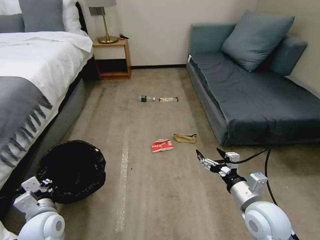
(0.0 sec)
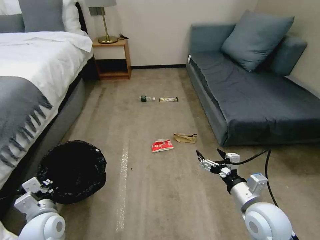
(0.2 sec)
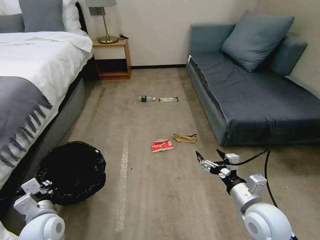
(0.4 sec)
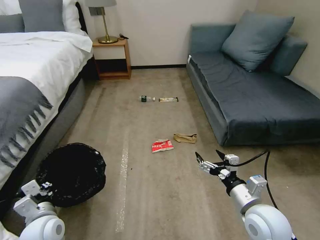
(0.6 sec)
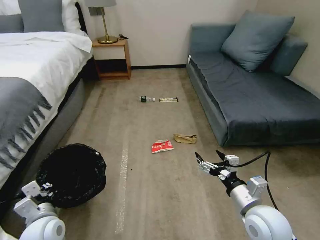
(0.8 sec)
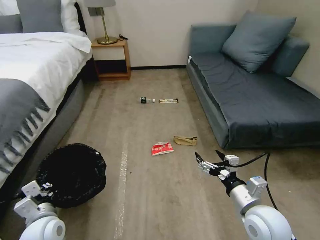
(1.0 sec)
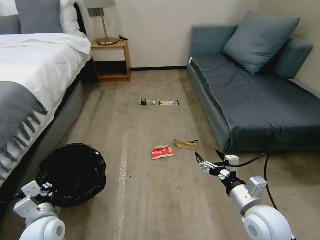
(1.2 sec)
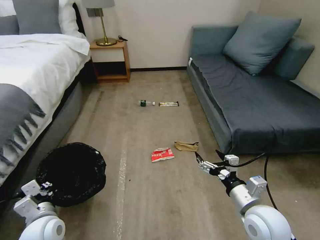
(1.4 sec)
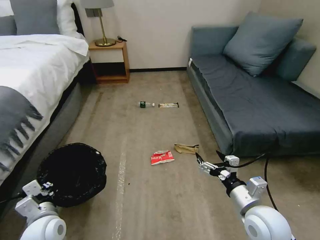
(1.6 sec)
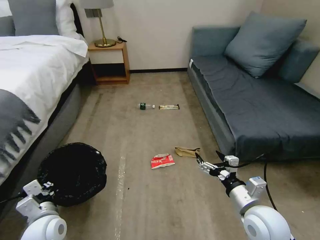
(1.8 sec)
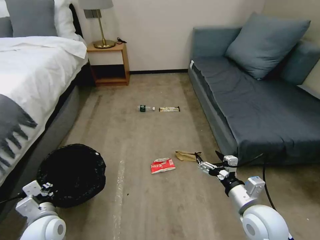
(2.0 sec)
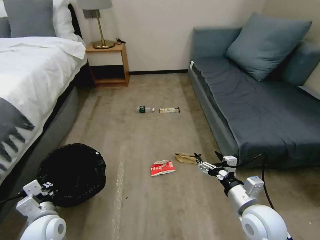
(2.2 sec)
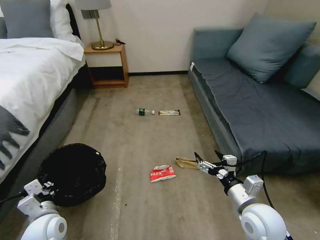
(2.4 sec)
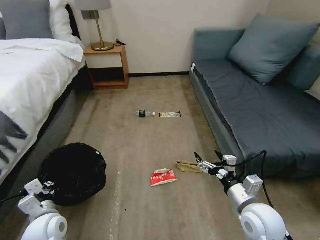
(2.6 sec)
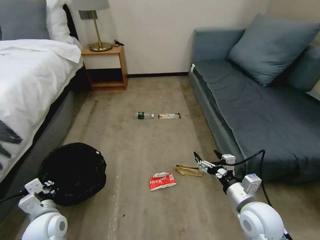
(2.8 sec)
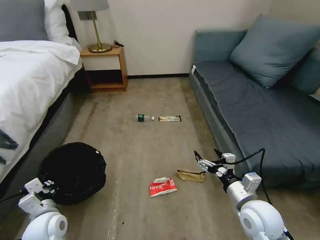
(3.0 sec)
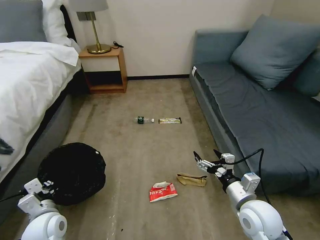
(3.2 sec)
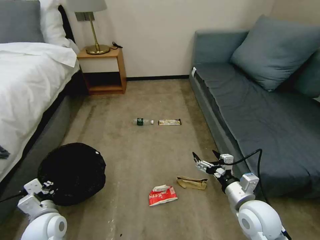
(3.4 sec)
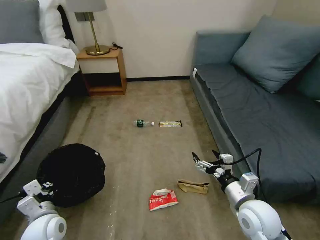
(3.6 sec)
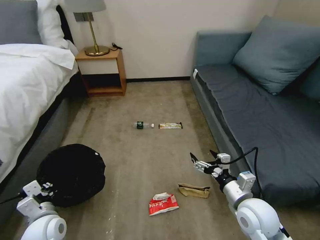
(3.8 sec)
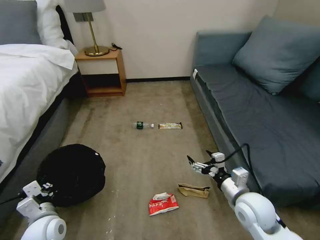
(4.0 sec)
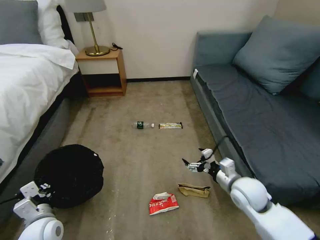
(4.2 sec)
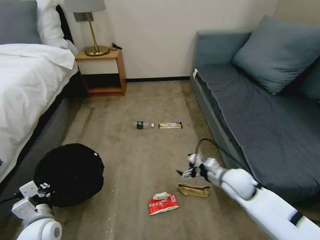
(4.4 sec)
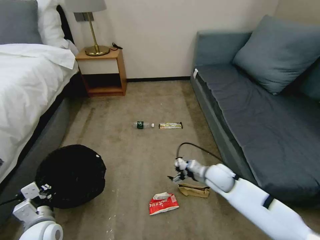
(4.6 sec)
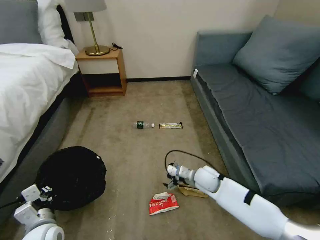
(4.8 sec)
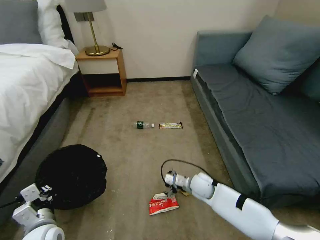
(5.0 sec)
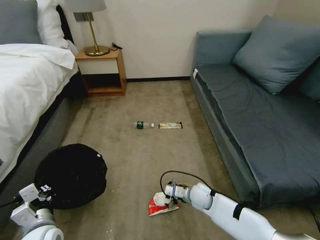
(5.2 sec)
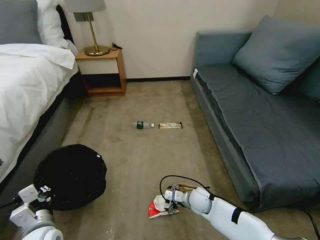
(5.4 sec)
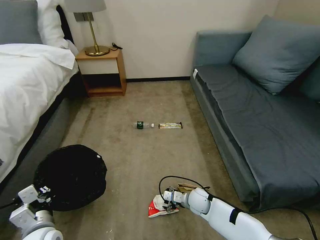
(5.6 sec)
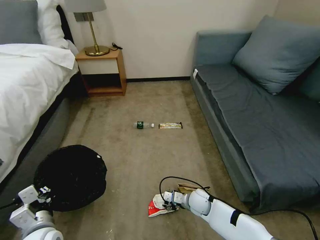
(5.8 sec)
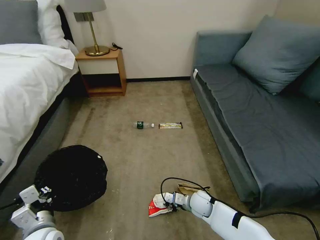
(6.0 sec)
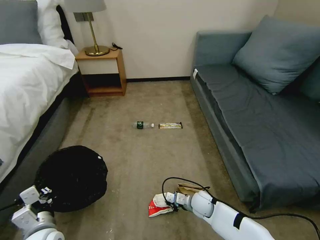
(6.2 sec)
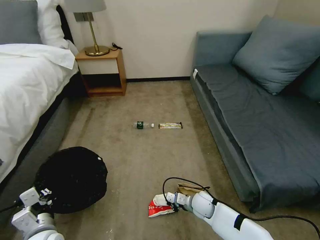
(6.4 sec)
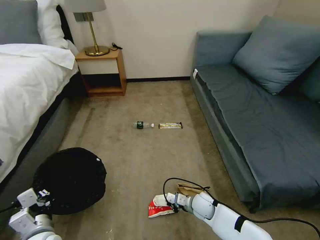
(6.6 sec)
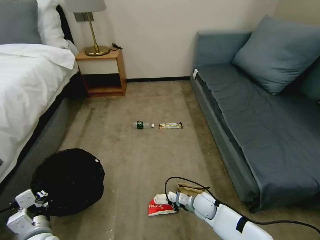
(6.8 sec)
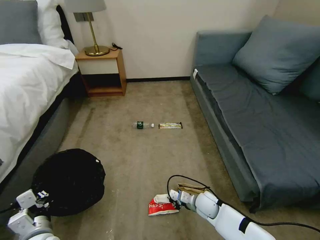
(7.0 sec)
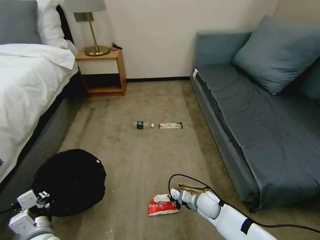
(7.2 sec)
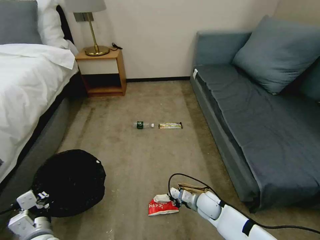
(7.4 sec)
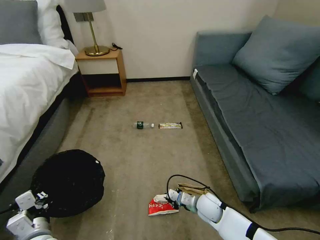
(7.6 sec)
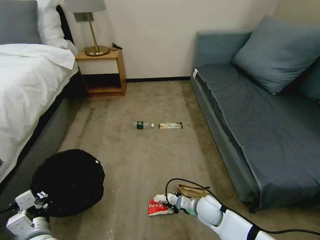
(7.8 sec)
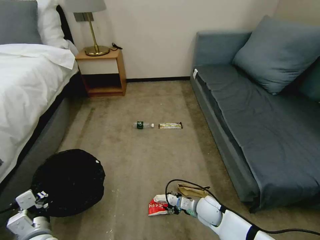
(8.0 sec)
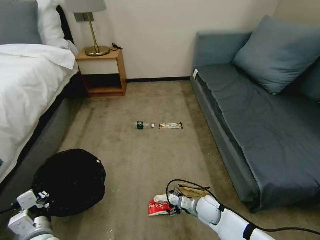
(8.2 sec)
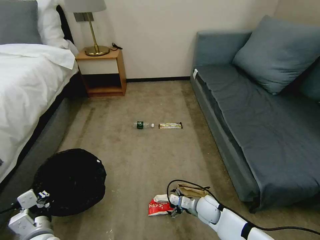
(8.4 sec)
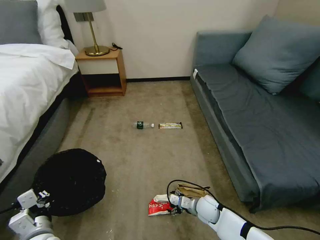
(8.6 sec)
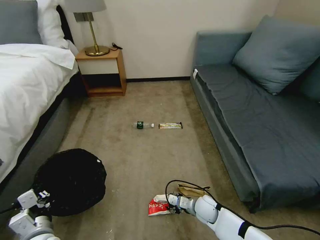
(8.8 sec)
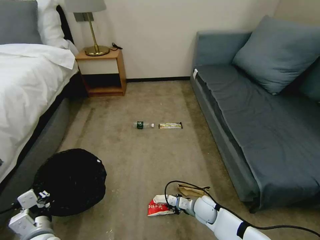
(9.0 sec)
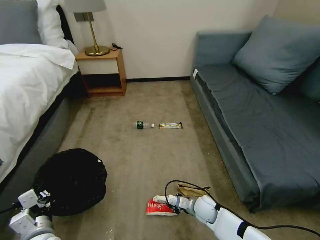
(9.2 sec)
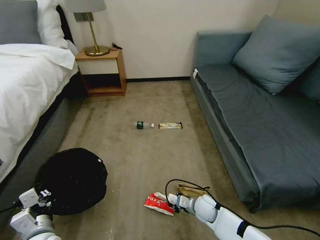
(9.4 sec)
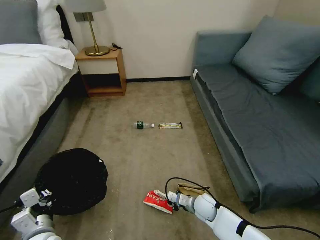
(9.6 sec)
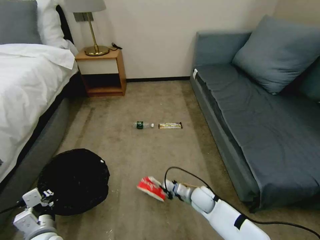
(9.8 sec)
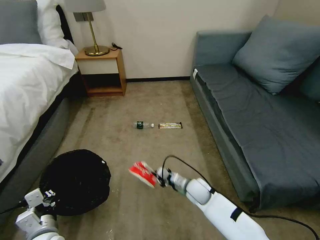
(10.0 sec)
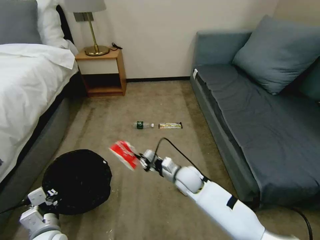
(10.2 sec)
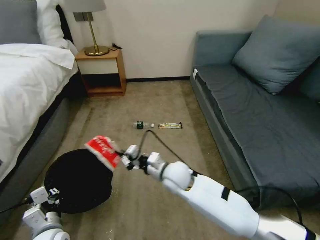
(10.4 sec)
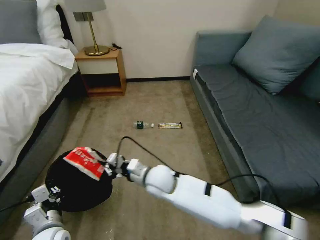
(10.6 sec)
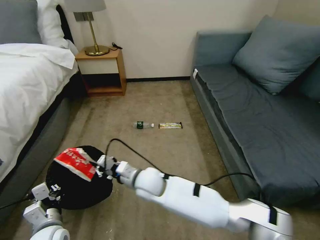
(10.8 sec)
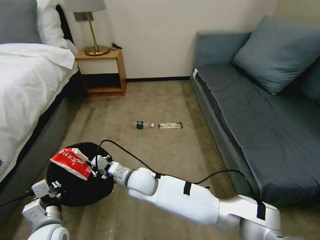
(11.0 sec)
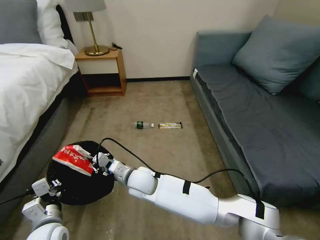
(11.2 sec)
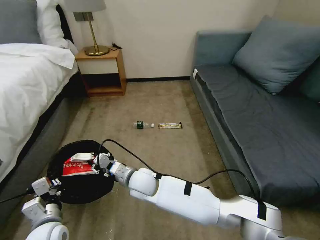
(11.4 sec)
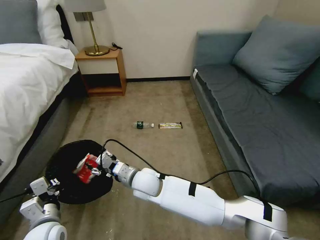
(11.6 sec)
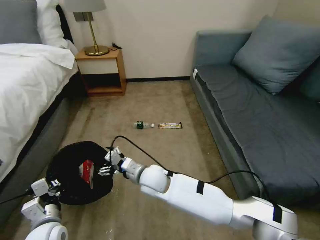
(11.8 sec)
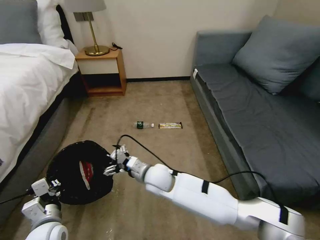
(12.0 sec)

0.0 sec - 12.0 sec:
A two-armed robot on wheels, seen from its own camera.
Task of the whole recording: Pick up the trash bin, then pick up the garbage on the floor and place it into the trash bin.
3.0 sec - 4.4 sec: The right gripper goes some 10 cm forward.
4.4 sec - 6.0 sec: The right gripper travels downward and to the left by some 20 cm, and closes up.
6.0 sec - 7.6 sec: The grippers stay close to where they were, moving slightly.
7.6 sec - 9.0 sec: The right gripper opens, then closes again.
9.0 sec - 10.4 sec: The right gripper travels upward and to the left by roughly 25 cm.
10.4 sec - 12.0 sec: The right gripper goes roughly 5 cm to the left, and opens its fingers.

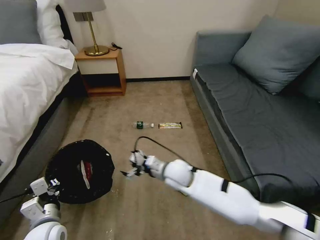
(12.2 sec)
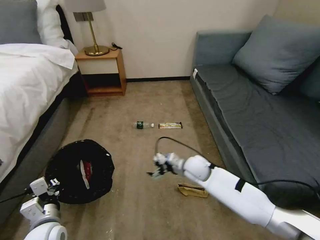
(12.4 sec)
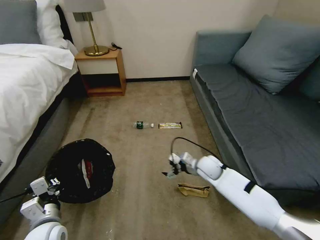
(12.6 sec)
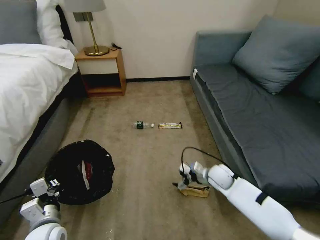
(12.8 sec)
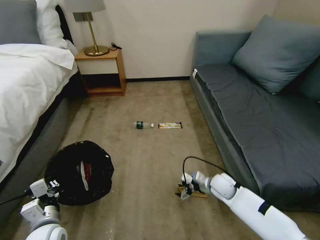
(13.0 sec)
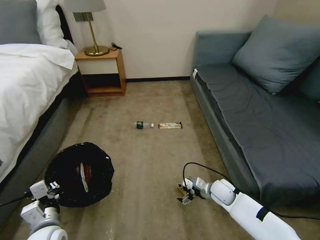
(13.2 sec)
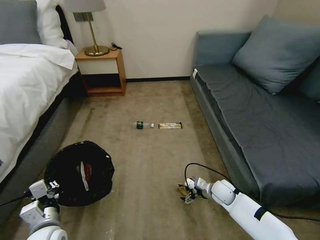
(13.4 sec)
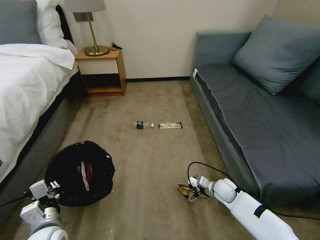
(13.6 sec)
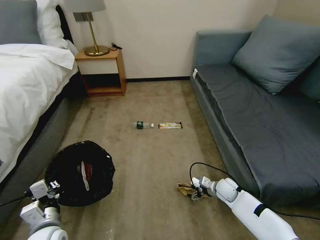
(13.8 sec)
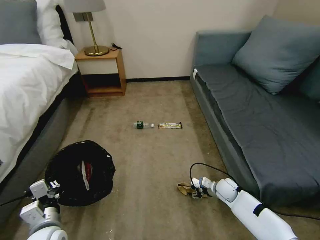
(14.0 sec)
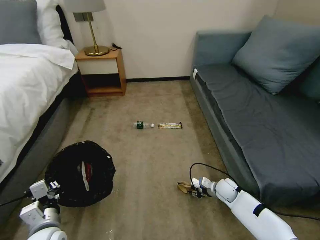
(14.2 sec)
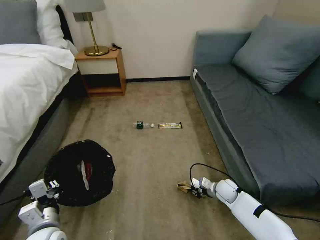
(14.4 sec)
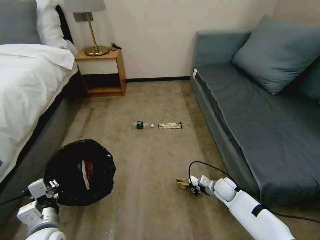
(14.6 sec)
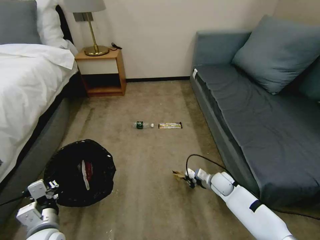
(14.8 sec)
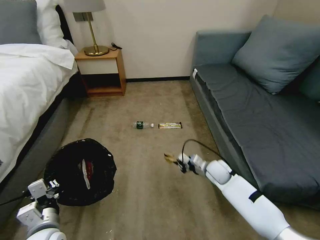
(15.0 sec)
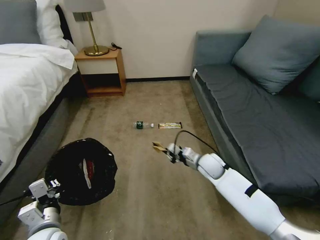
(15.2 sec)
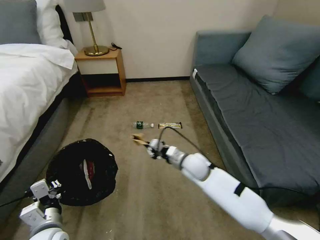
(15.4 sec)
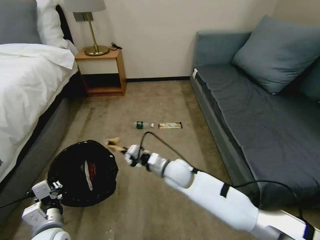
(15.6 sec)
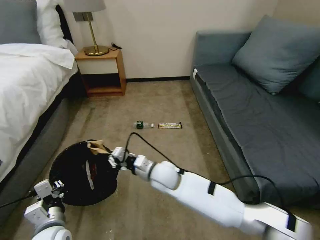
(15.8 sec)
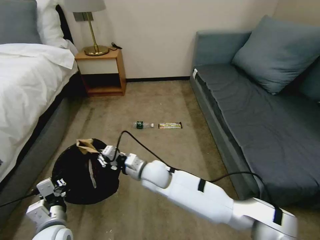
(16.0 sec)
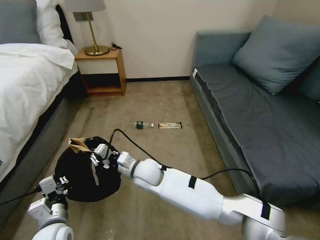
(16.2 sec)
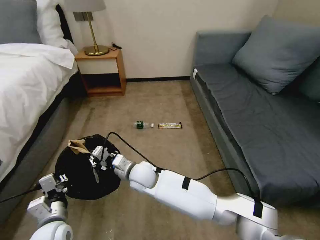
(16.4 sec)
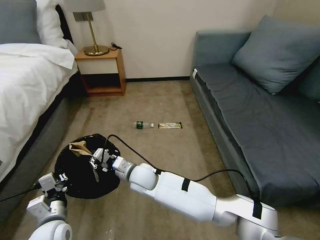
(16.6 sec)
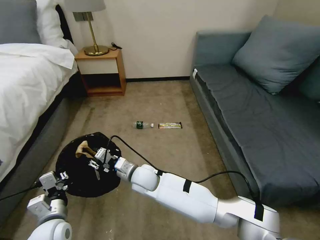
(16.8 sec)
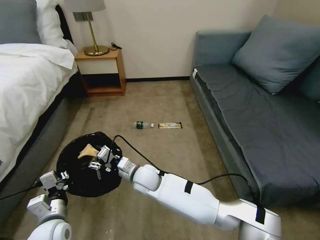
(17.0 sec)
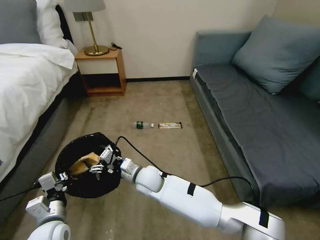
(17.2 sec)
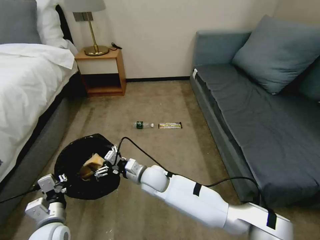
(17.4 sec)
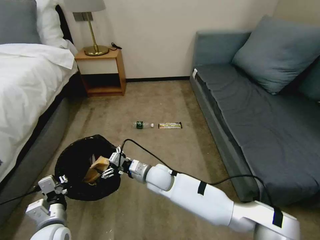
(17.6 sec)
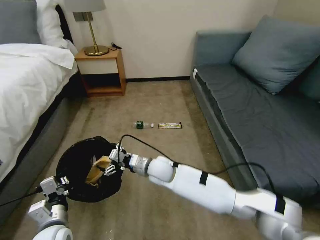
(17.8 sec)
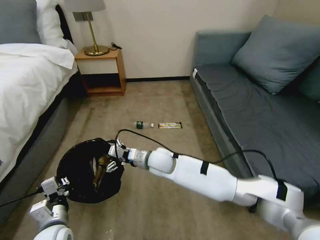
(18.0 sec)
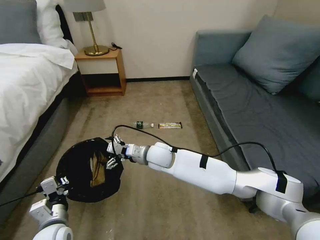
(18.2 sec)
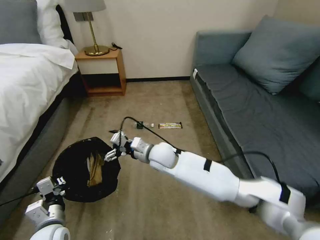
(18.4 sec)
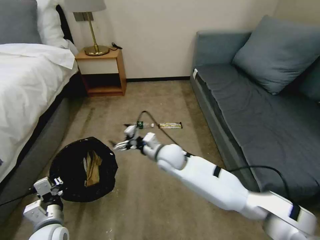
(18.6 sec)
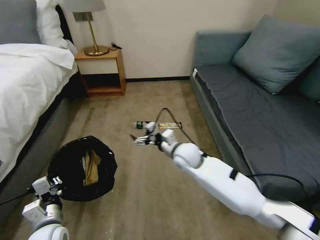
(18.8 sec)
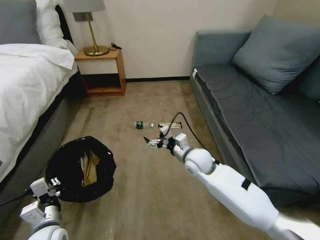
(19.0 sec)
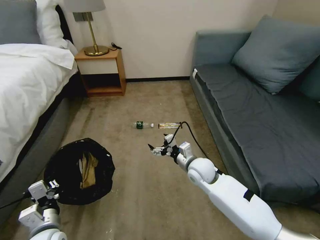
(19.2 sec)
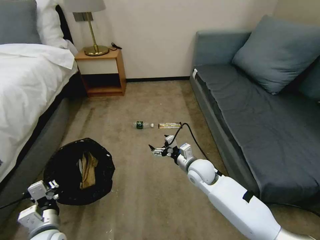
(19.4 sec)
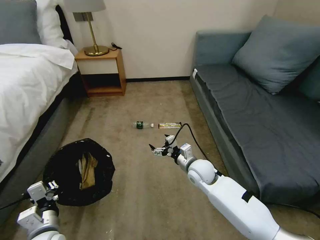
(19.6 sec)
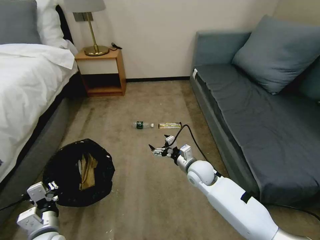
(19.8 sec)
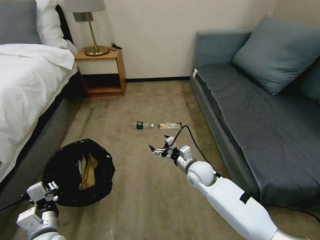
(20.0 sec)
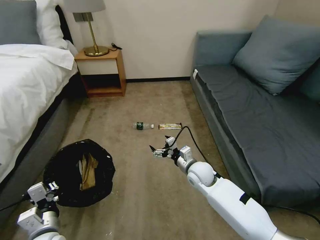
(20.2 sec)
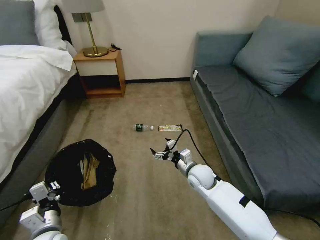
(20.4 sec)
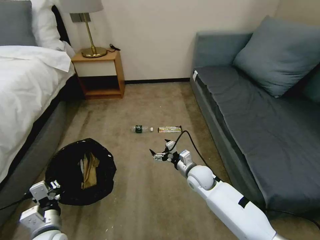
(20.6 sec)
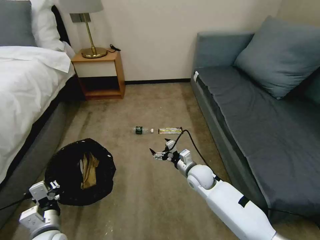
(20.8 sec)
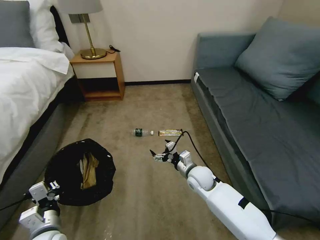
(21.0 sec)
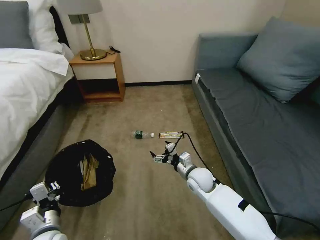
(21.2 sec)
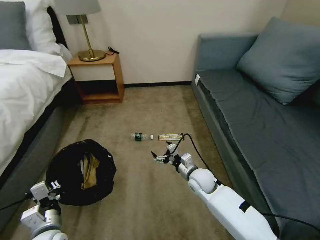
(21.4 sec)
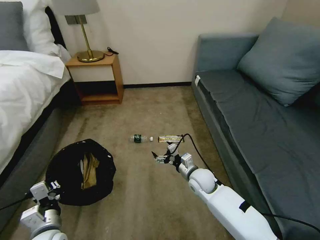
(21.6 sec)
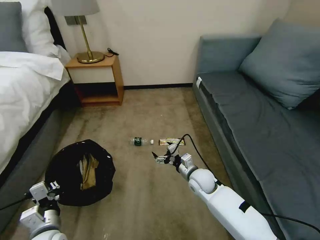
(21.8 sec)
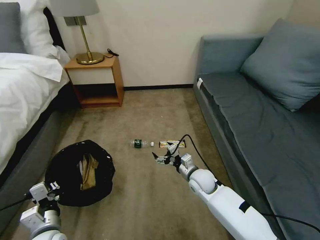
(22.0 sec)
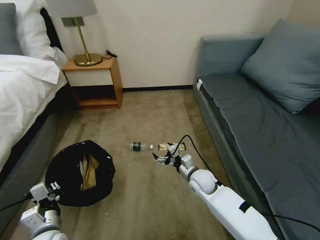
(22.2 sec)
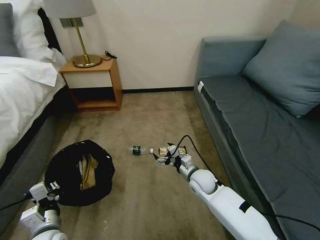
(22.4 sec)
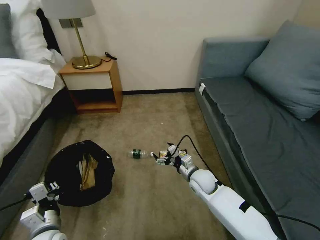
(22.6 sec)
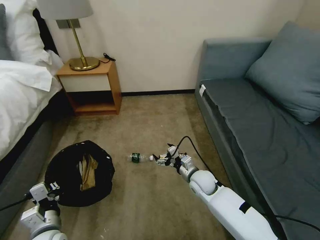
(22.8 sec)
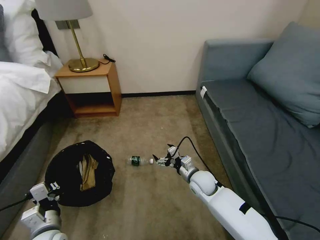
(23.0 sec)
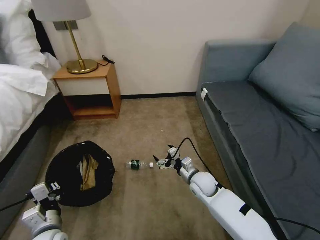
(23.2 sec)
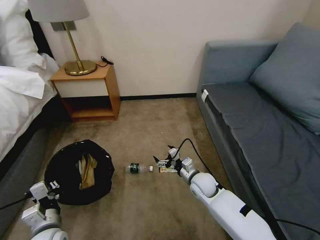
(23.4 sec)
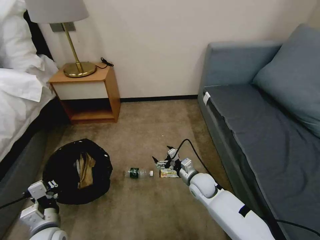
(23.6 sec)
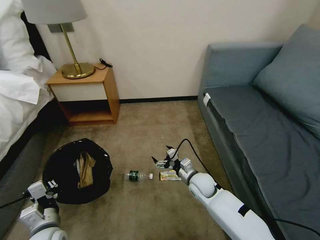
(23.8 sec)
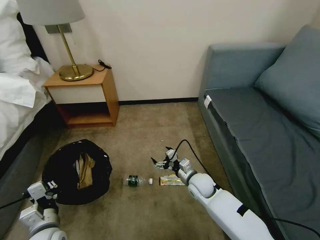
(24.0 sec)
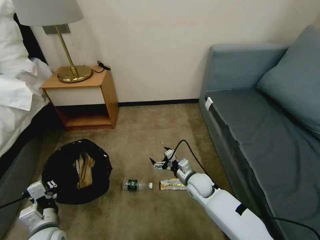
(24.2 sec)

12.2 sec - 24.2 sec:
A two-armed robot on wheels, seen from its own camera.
Task of the whole recording: Pick up the trash bin, then pick up the garbage on the floor and place it into the trash bin.
12.2 sec - 13.8 sec: The right gripper goes approximately 30 cm to the right and downward.
13.8 sec - 15.2 sec: The right gripper shifts about 15 cm upward and to the left, and closes its fingers.
15.2 sec - 16.6 sec: The right gripper goes roughly 30 cm to the left.
16.6 sec - 18.2 sec: The right gripper shifts about 10 cm to the right, forward and upward, and opens up.
18.2 sec - 19.8 sec: The right gripper is displaced to the right and downward by roughly 15 cm.
